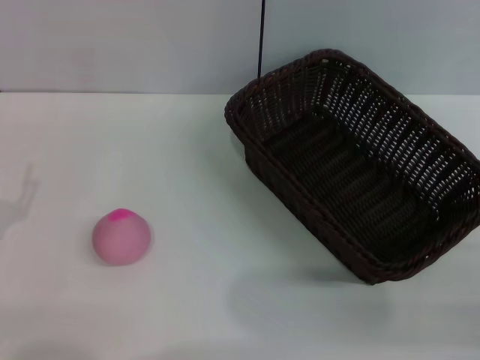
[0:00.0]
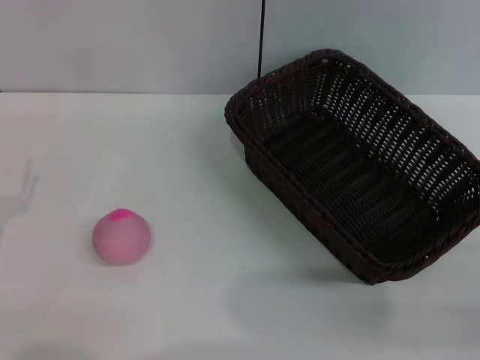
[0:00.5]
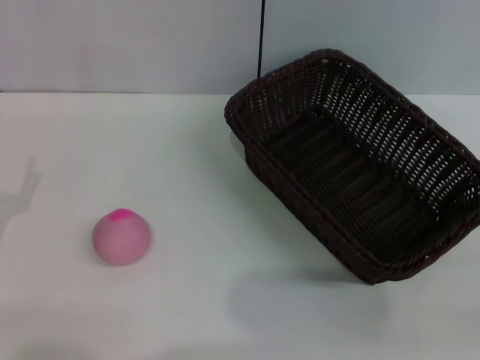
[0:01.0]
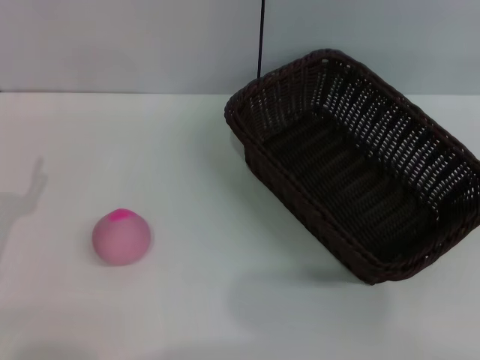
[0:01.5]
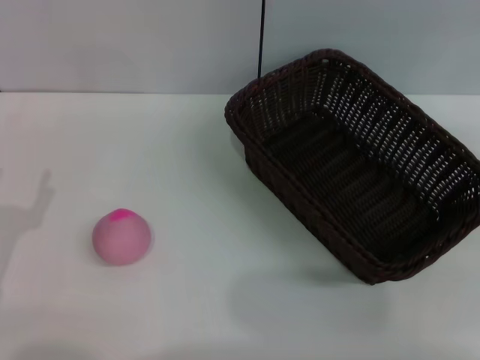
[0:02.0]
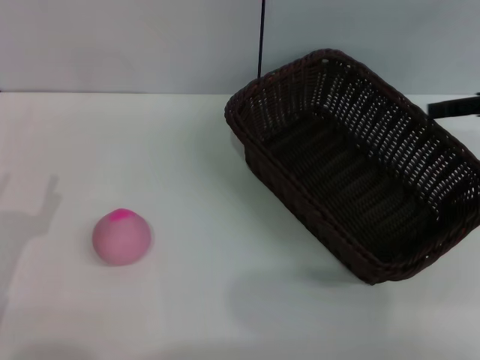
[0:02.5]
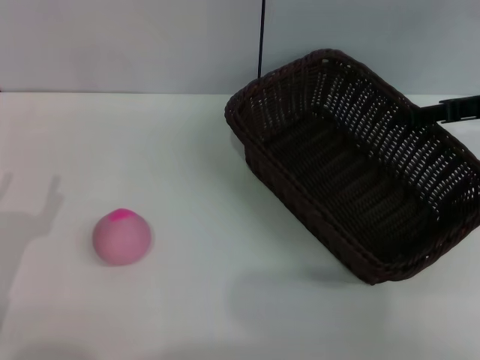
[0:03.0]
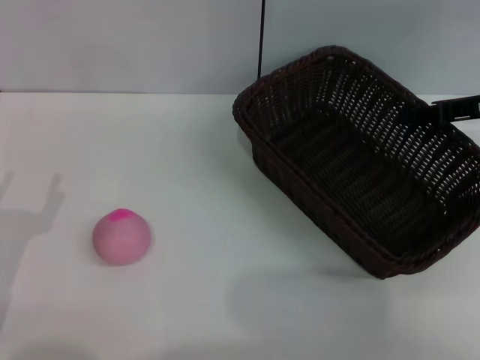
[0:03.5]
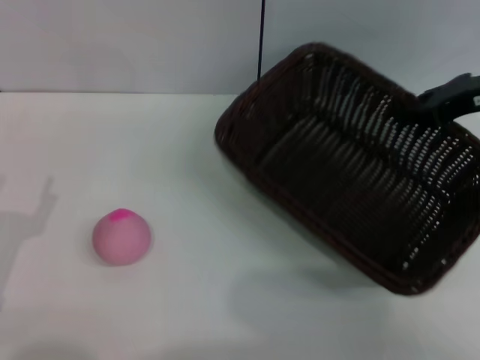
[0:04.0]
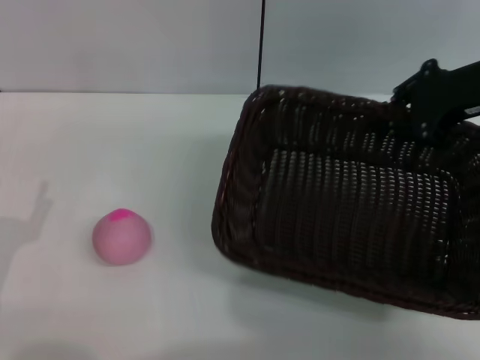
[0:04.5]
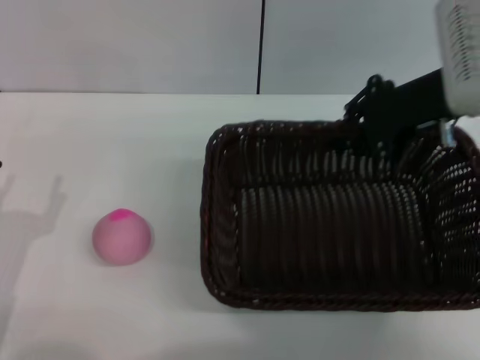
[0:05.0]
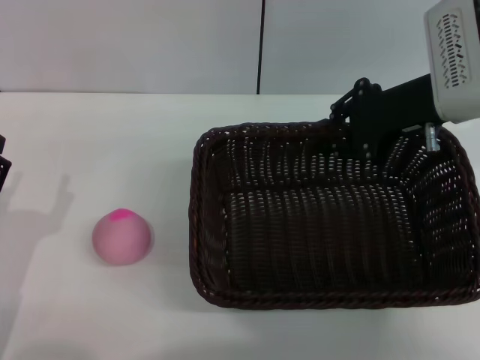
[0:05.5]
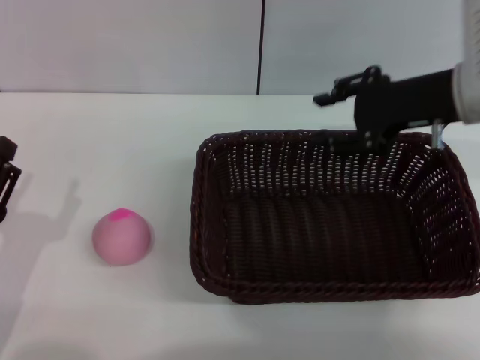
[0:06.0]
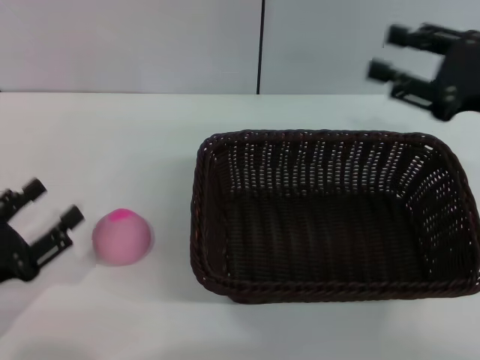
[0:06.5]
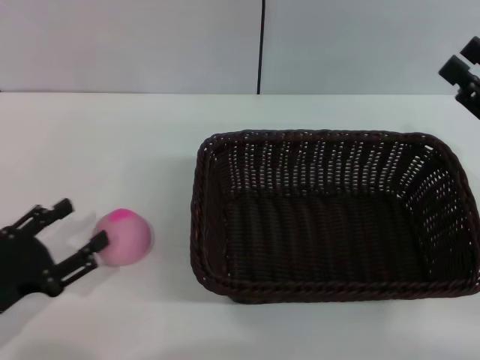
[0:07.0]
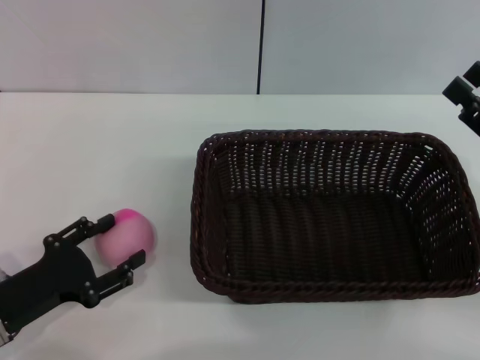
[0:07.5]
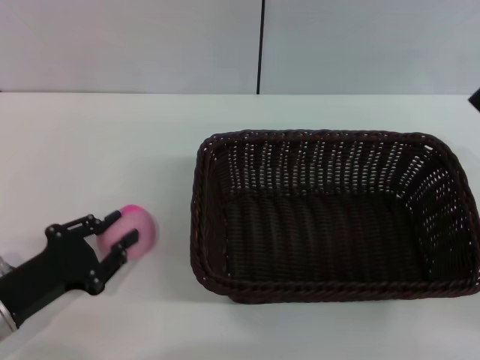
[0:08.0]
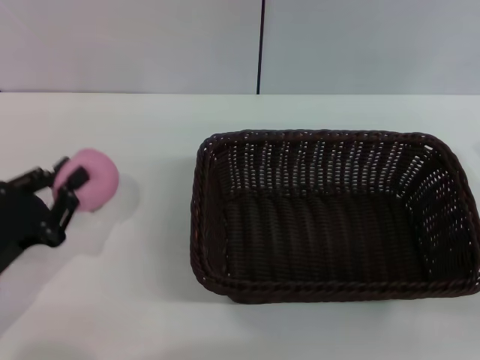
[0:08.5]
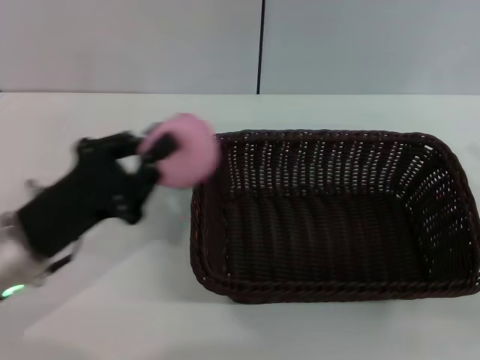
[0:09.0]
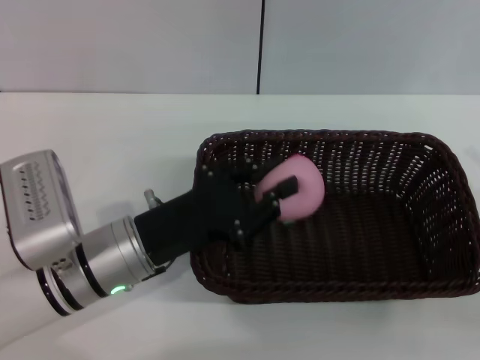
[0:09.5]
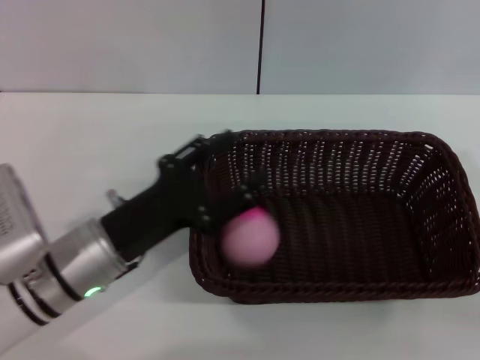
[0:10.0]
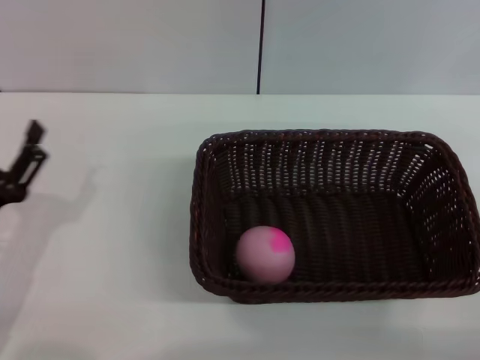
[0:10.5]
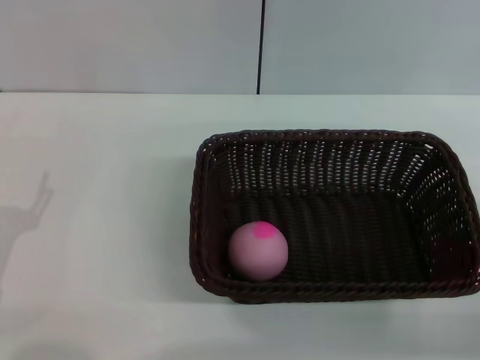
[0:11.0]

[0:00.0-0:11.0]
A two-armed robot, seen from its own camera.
Step, 0:00.0 to 0:03.5: Pick up the dark basket with the right gripper.
Step, 0:04.0 to 0:06.0: Place the dark basket in the center of view with the right gripper.
Step, 0:06.5 to 0:08.5: Pick up the peach with the left gripper.
Step, 0:09.0 to 0:10.0: Place the peach into the basket with the left gripper.
0:02.0 to 0:03.5: The right gripper goes approximately 15 cm to the left, downward and forward, and closes.
0:03.5 to 0:05.5: The right gripper shifts some 10 cm to the left.
0:05.5 to 0:07.5: The right gripper heads backward, to the right and downward, covering roughly 20 cm, and opens its fingers.
0:07.5 to 0:09.0: The left gripper is displaced upward and to the right by roughly 10 cm, and closes its fingers.
0:09.0 to 0:11.0: The left gripper goes approximately 10 cm to the left and backward, and opens its fingers.

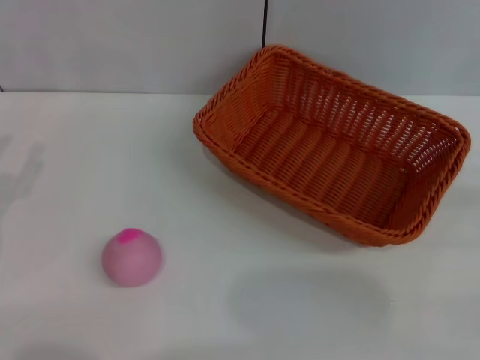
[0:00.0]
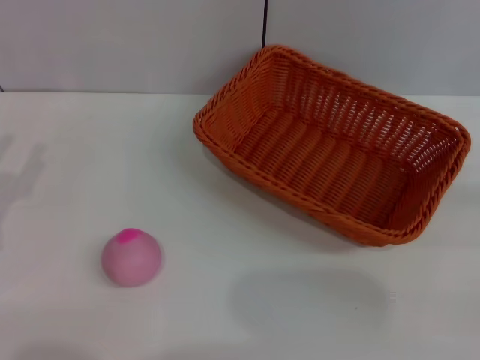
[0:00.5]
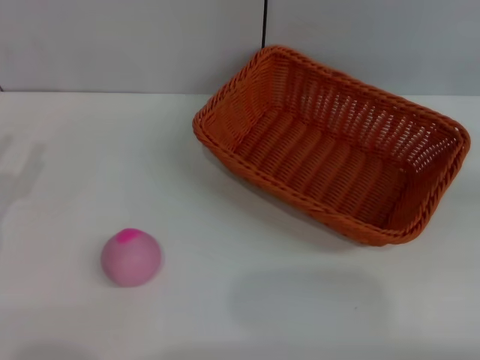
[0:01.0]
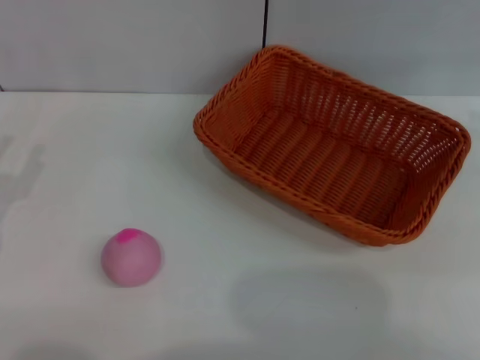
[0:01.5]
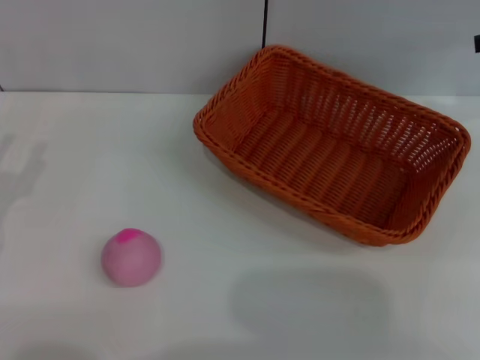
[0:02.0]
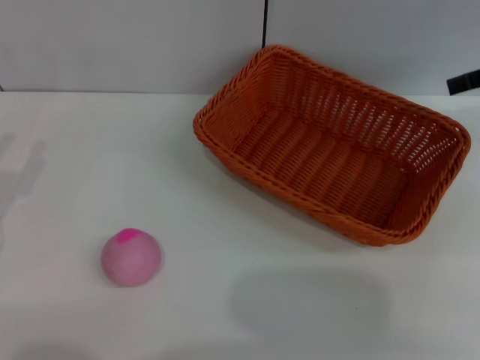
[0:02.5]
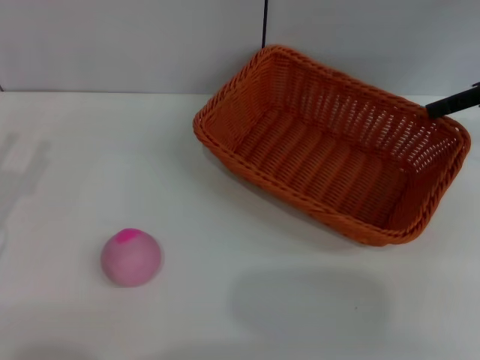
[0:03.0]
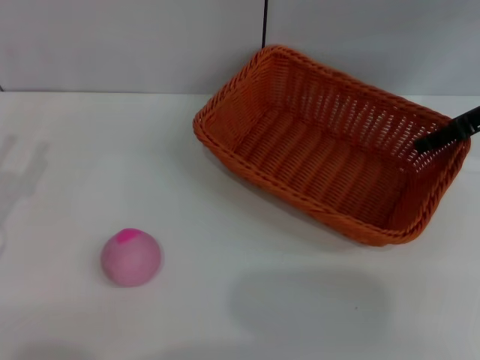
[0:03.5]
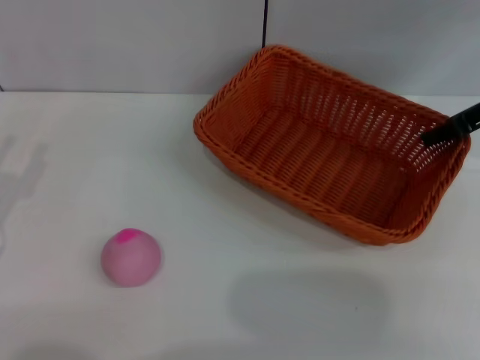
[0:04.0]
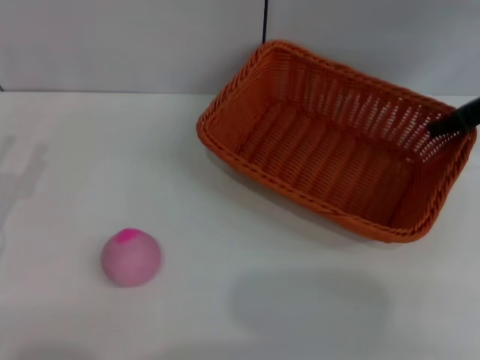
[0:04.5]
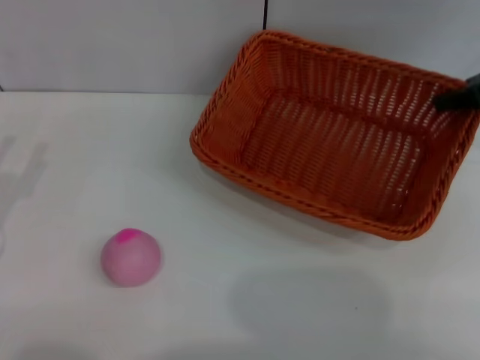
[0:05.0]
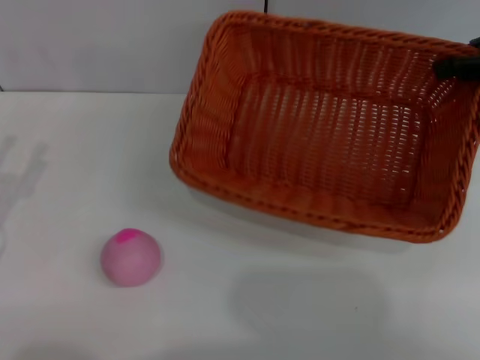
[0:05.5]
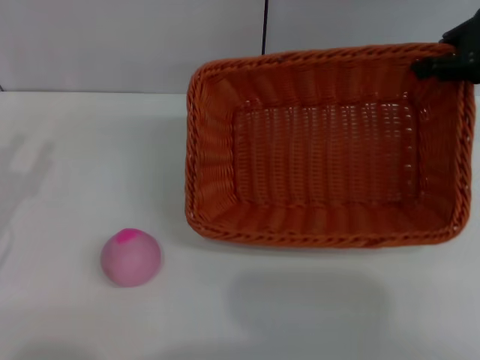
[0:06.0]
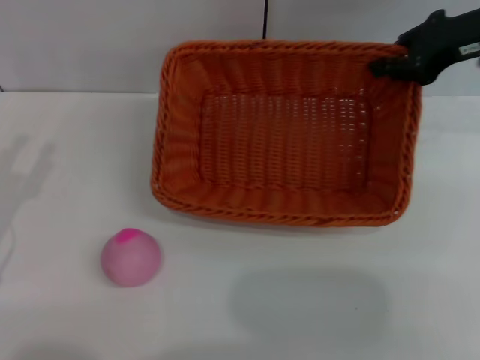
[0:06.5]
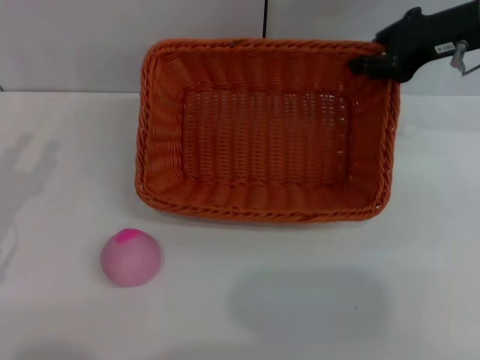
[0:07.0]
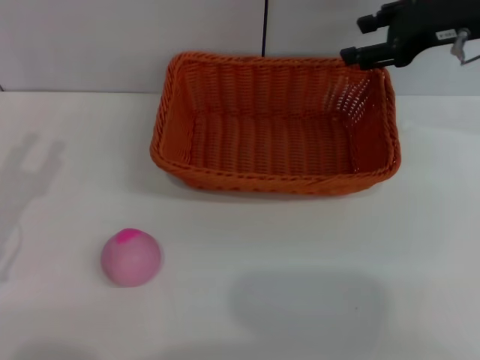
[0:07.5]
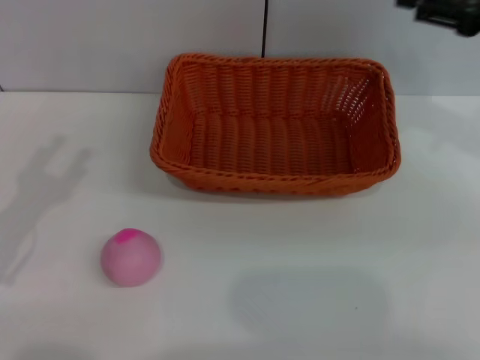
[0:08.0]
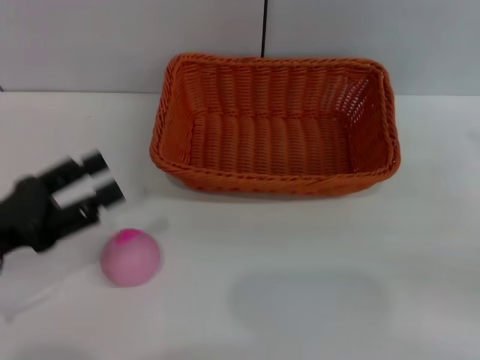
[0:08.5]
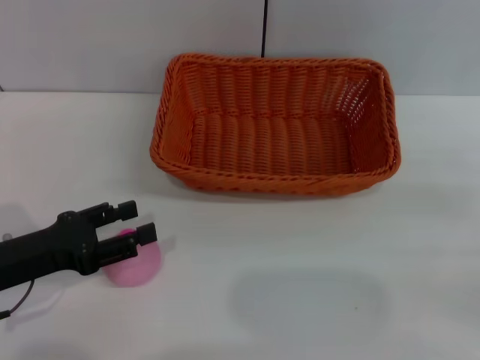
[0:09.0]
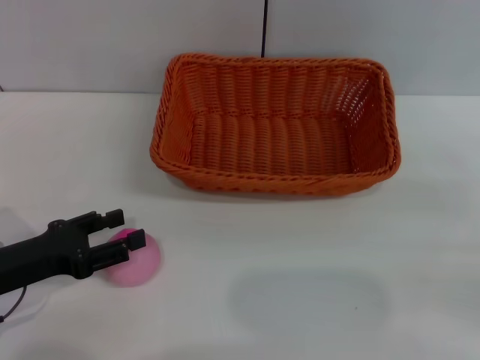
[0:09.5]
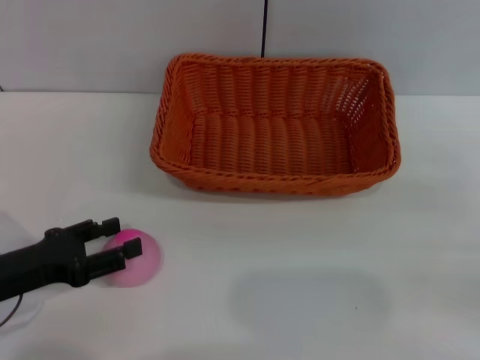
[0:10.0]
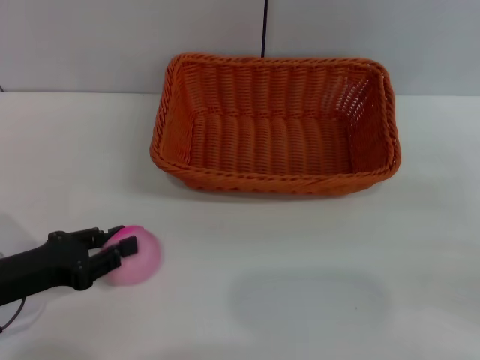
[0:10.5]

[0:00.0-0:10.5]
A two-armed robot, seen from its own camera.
Step, 0:00.0 to 0:04.5: Pick up the light basket with the right gripper.
Step, 0:05.0 to 0:07.5: Place the light basket in the center of view with the right gripper.
0:02.0 to 0:04.0: The right gripper is displaced to the left and downward by about 10 cm.
0:04.0 to 0:06.5: The right gripper closes its fingers.
0:06.5 to 0:08.5: The right gripper moves backward, to the right and downward, roughly 25 cm, and opens.

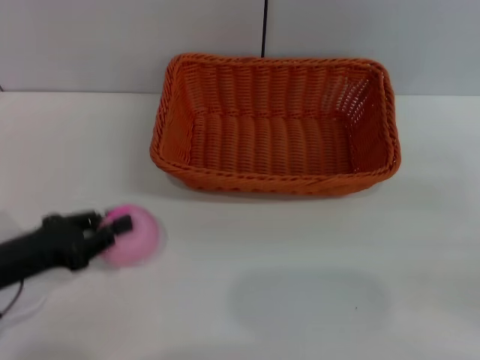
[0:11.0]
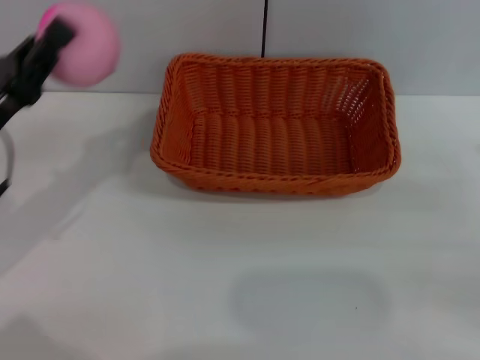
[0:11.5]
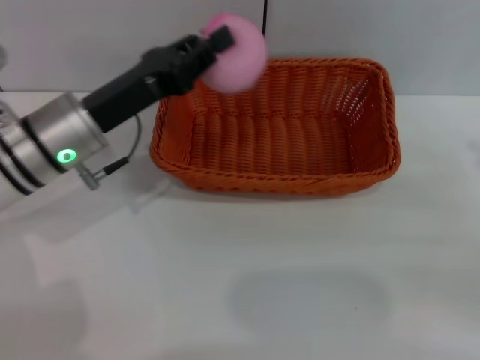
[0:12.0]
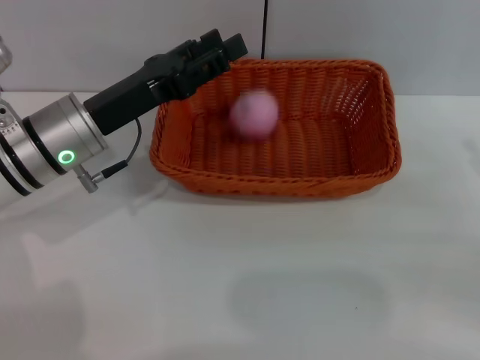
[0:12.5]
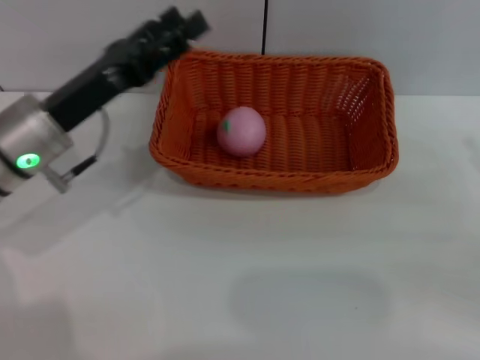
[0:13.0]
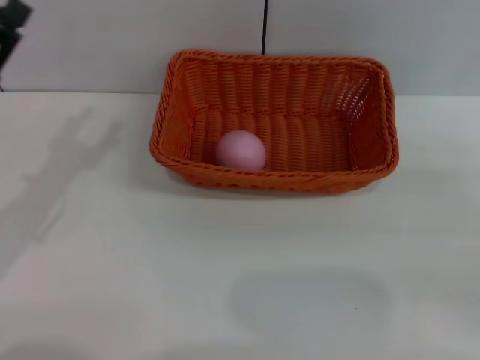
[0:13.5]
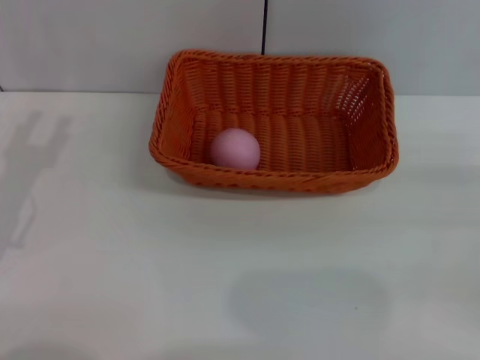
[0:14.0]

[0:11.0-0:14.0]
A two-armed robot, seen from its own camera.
Step, 0:11.5 to 0:12.5: Place the peach into the basket with the left gripper.
0:11.0 to 0:12.5: The left gripper shifts roughly 15 cm forward, to the right and upward, and opens.
0:12.5 to 0:14.0: The left gripper shifts some 15 cm to the left and backward.
